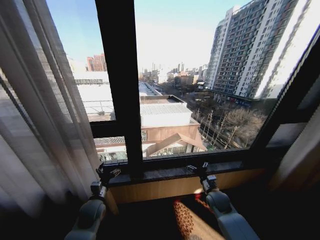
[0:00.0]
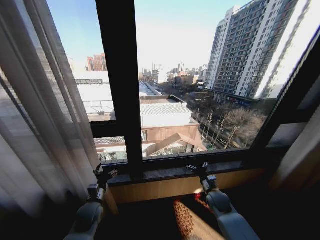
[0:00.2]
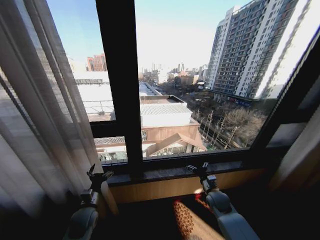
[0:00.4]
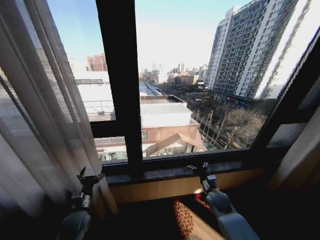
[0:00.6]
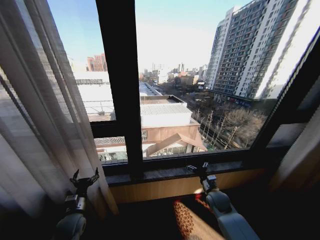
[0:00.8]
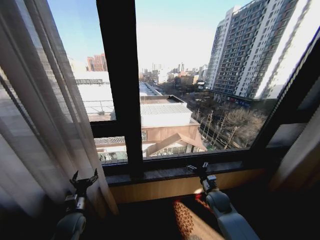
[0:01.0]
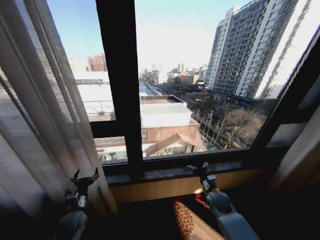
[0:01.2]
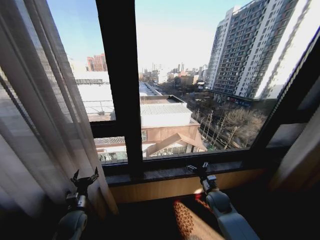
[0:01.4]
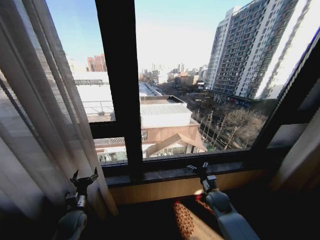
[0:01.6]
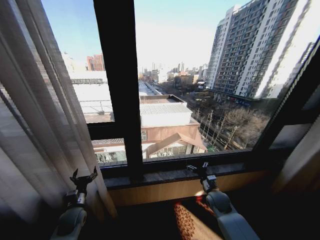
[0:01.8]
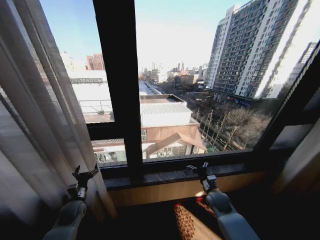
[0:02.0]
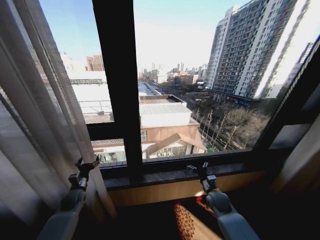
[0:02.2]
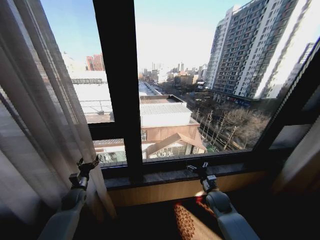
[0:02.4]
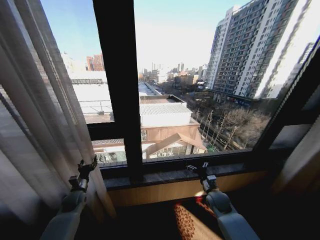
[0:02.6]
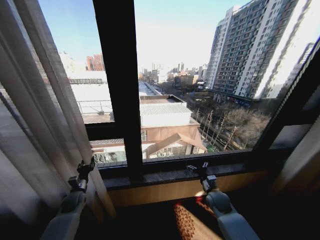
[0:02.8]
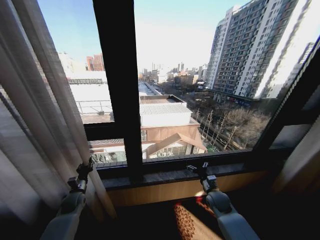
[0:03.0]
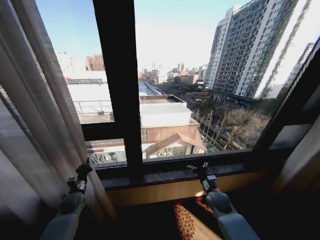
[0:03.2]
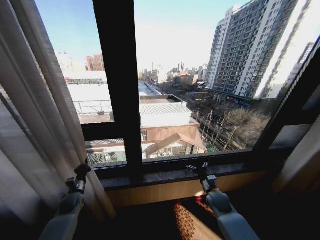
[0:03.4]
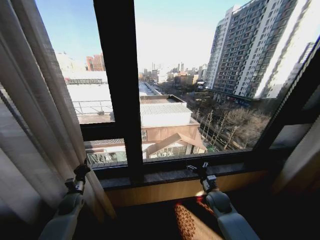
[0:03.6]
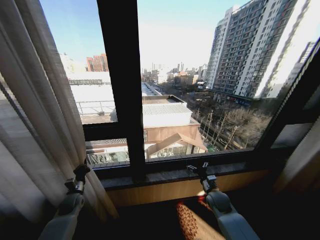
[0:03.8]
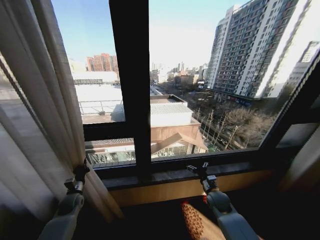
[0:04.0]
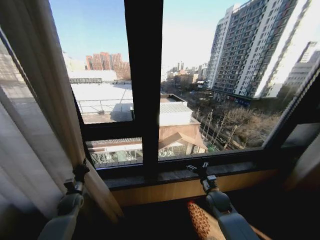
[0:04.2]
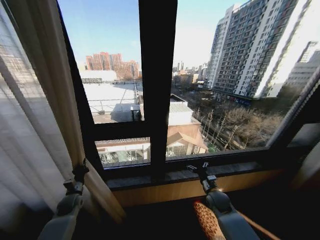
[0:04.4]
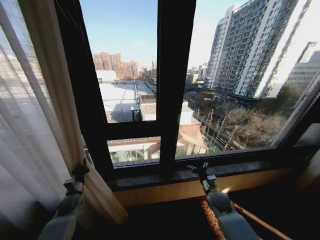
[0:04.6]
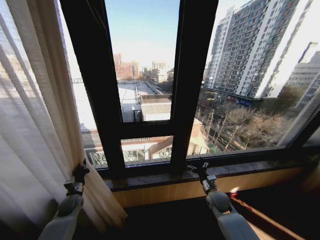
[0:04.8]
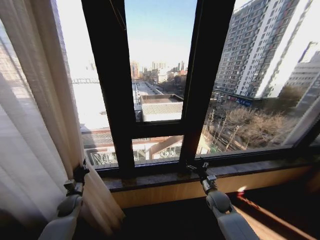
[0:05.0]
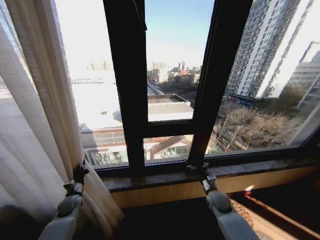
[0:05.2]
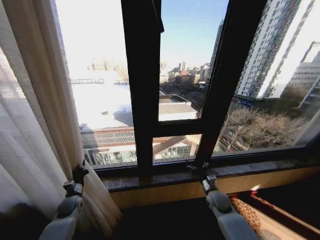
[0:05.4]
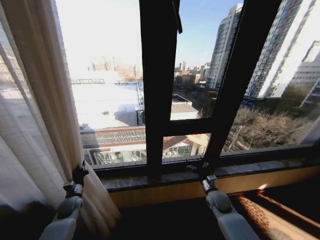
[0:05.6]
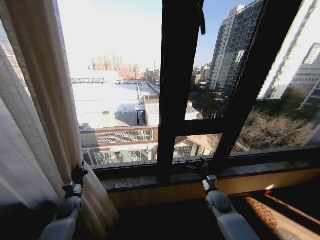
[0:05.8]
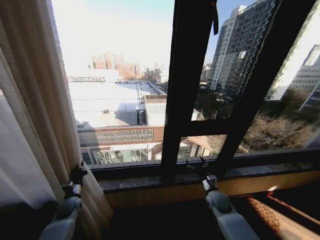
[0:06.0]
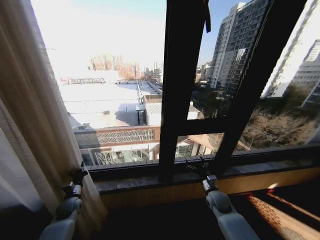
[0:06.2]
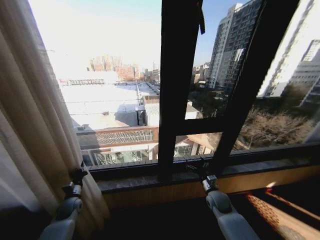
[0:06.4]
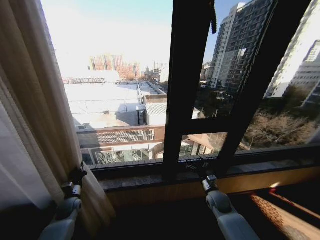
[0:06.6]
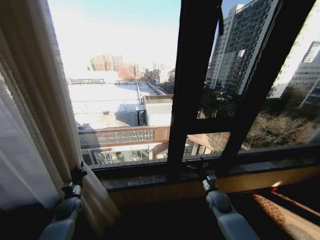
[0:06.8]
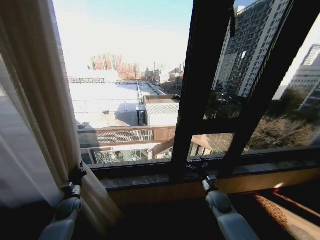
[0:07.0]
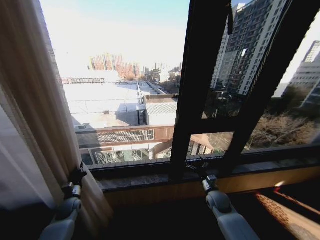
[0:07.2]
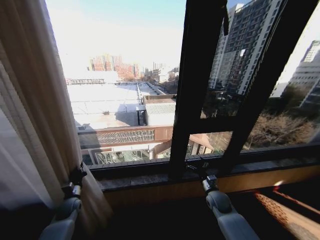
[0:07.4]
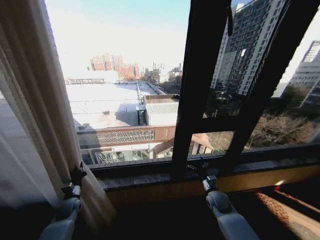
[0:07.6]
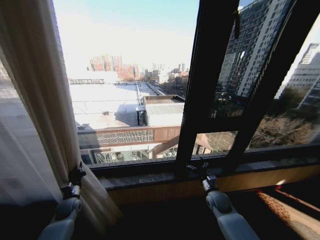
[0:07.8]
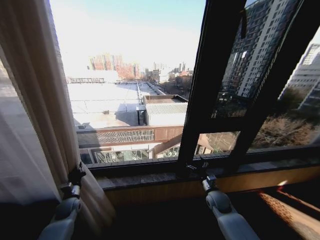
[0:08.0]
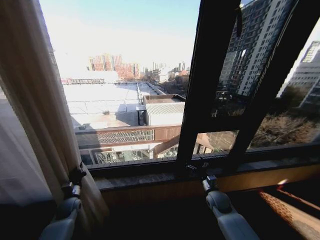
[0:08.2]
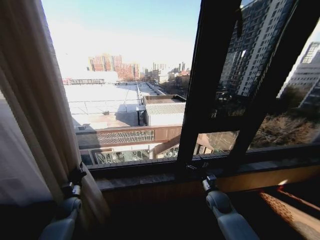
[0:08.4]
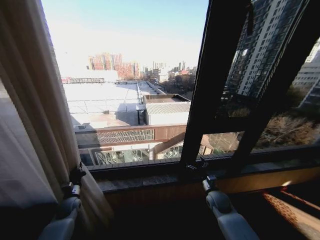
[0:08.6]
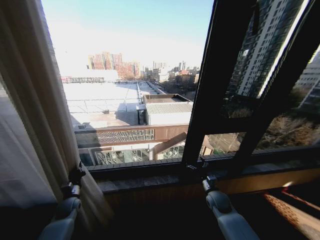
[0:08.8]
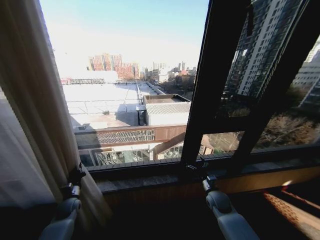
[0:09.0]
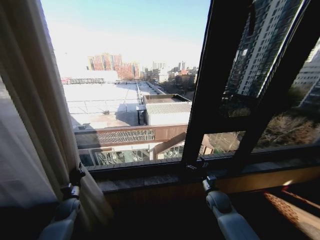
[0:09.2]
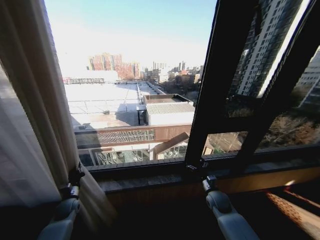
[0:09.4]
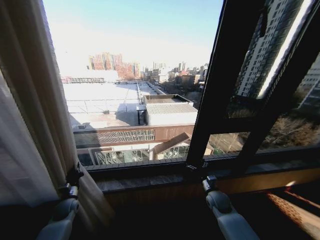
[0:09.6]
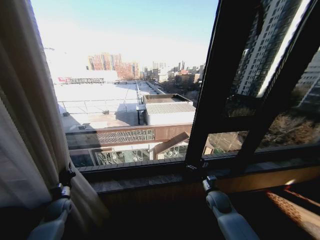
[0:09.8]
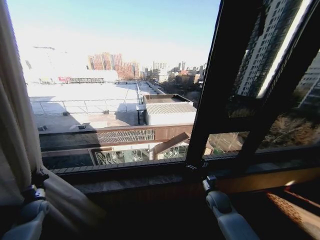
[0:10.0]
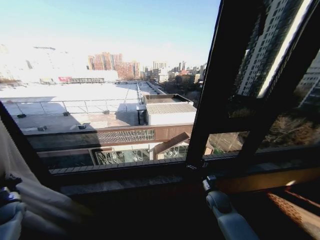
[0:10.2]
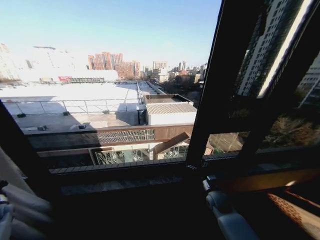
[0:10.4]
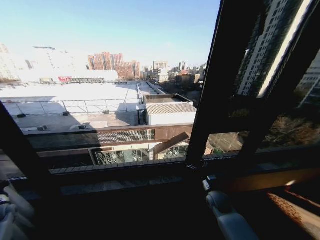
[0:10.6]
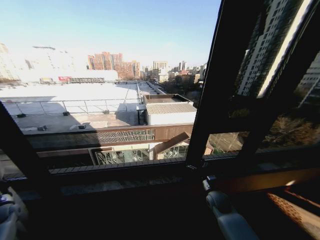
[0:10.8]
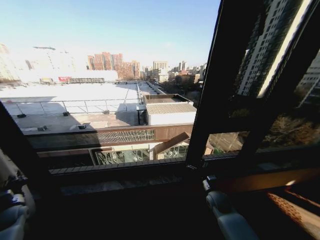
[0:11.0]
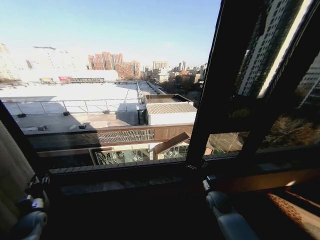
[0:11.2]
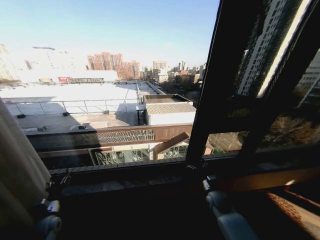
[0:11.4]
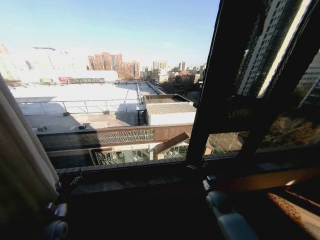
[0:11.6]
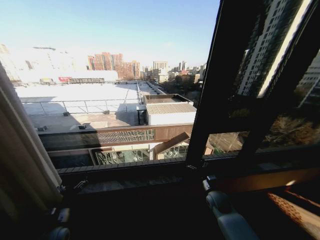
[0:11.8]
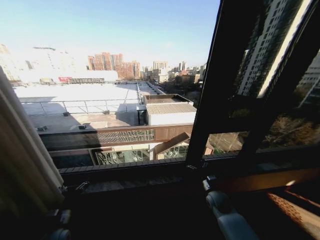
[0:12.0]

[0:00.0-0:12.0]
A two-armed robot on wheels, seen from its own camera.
Task of the whole recording: Open the curtains by pulling them apart, changing their state from closed to fully open.
0:00.0 to 0:01.6: The left gripper moves to the left, about 10 cm.
0:01.6 to 0:03.0: The left gripper is displaced forward by about 10 cm, and closes up.
0:03.0 to 0:04.4: The left gripper closes its fingers.
0:09.0 to 0:10.4: The left gripper heads to the left, covering approximately 25 cm.
0:10.4 to 0:12.0: The left gripper moves to the right, roughly 30 cm, and opens its fingers.
